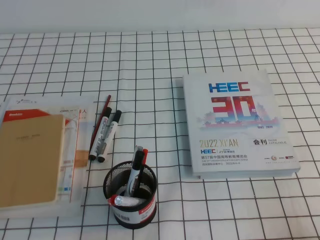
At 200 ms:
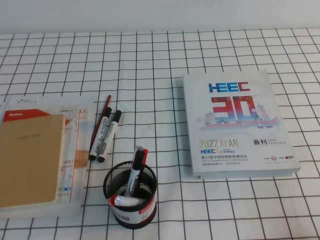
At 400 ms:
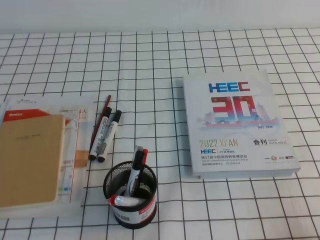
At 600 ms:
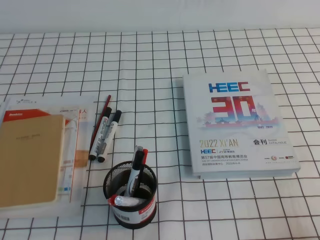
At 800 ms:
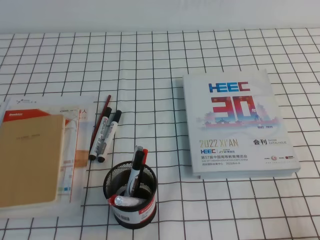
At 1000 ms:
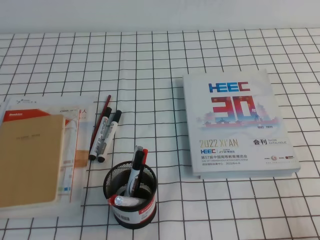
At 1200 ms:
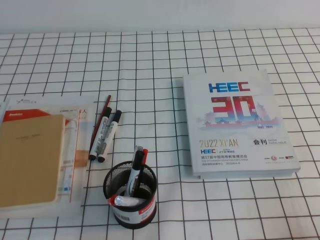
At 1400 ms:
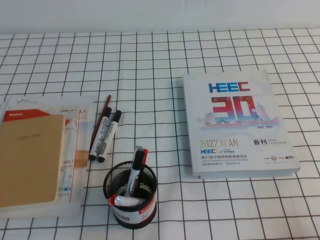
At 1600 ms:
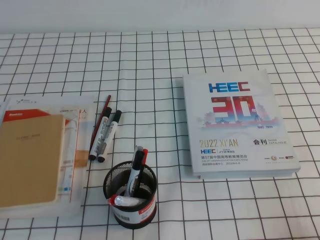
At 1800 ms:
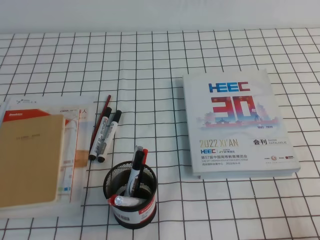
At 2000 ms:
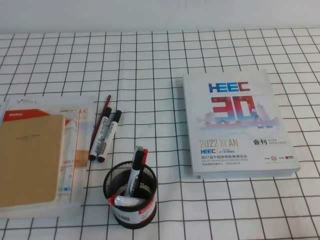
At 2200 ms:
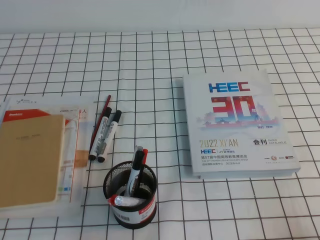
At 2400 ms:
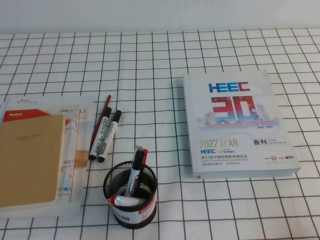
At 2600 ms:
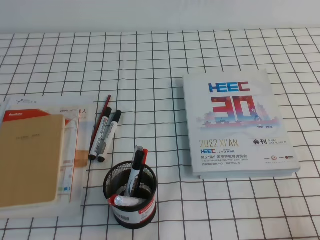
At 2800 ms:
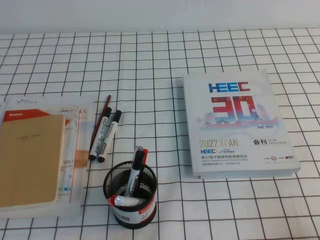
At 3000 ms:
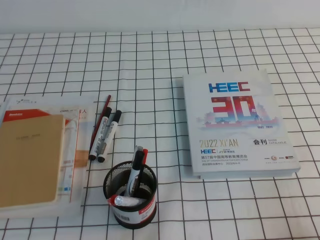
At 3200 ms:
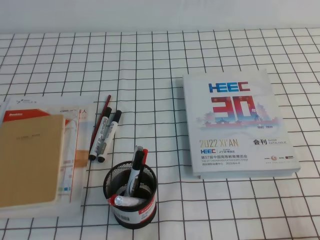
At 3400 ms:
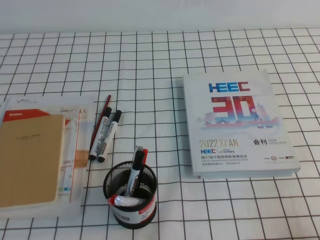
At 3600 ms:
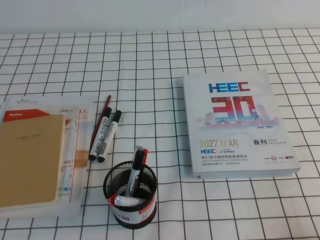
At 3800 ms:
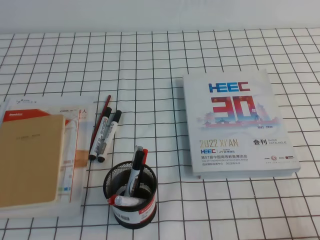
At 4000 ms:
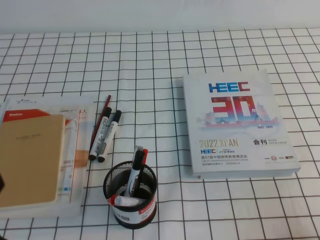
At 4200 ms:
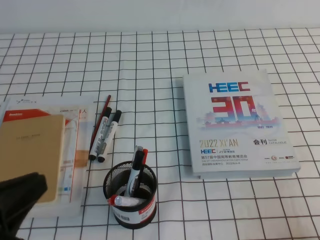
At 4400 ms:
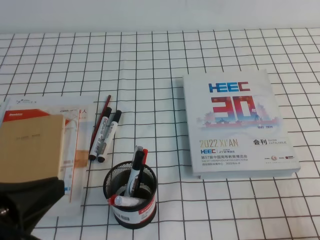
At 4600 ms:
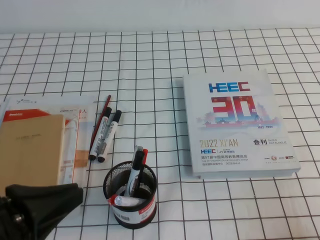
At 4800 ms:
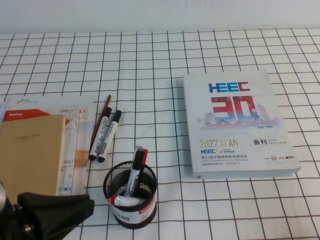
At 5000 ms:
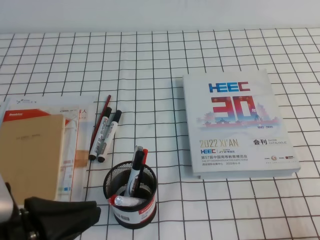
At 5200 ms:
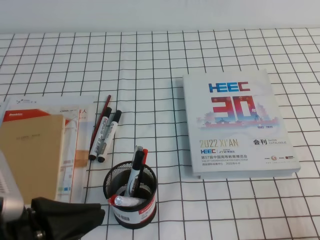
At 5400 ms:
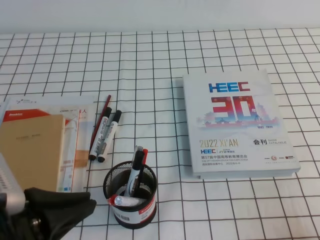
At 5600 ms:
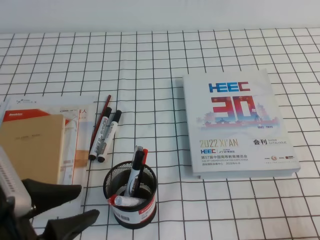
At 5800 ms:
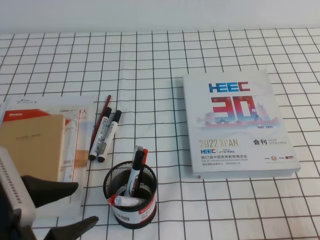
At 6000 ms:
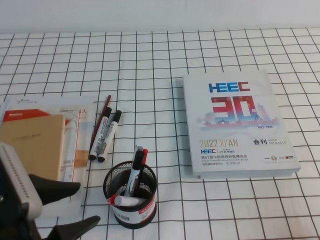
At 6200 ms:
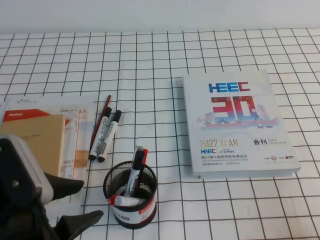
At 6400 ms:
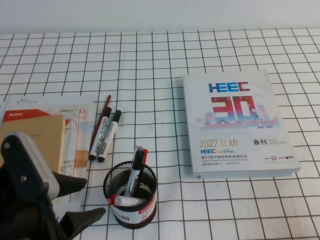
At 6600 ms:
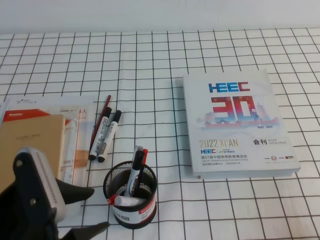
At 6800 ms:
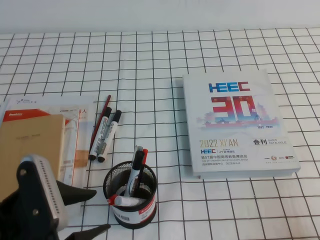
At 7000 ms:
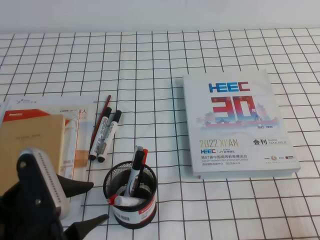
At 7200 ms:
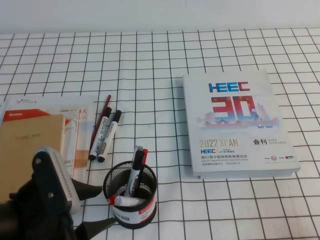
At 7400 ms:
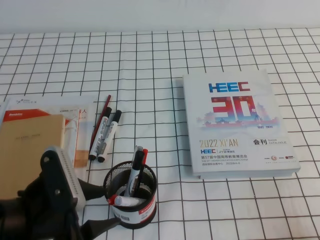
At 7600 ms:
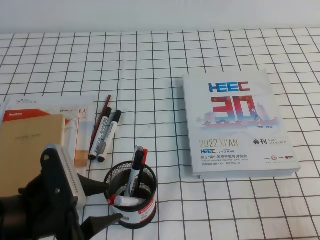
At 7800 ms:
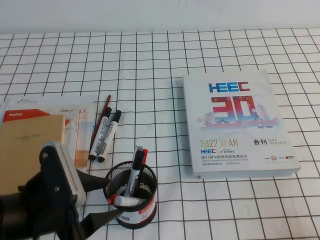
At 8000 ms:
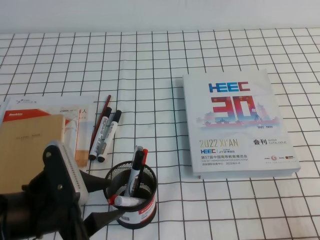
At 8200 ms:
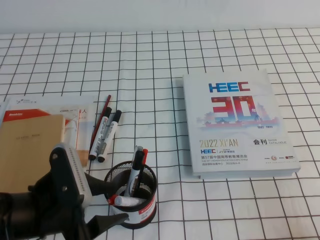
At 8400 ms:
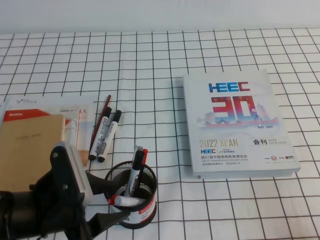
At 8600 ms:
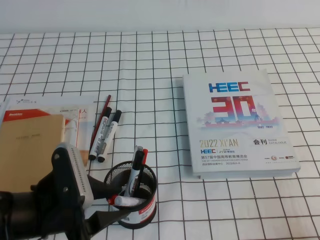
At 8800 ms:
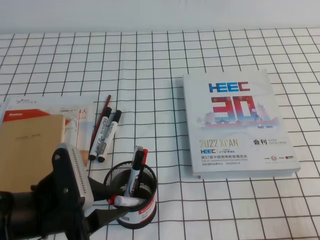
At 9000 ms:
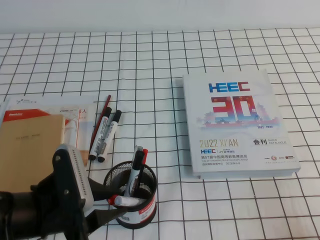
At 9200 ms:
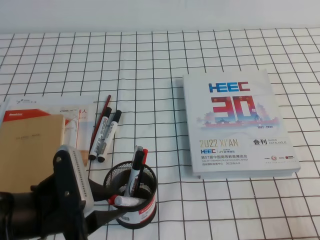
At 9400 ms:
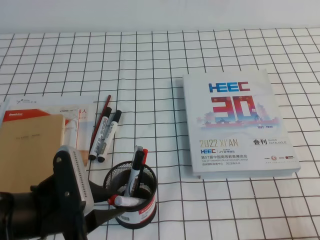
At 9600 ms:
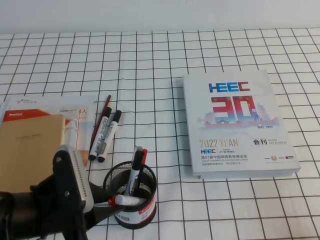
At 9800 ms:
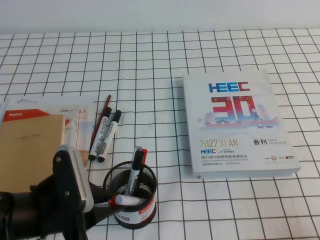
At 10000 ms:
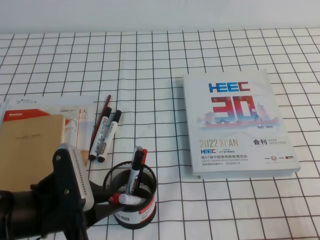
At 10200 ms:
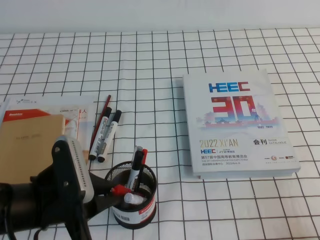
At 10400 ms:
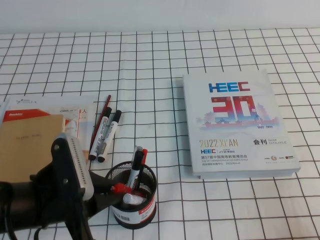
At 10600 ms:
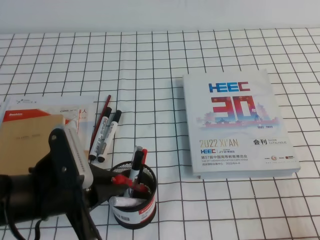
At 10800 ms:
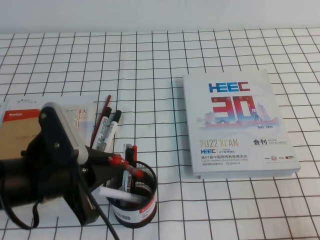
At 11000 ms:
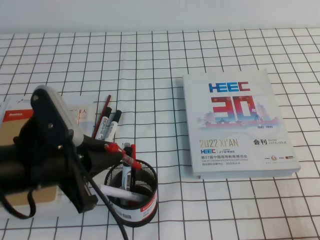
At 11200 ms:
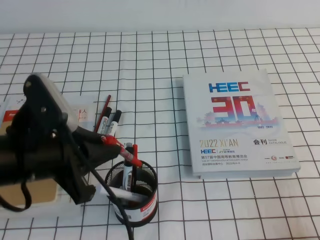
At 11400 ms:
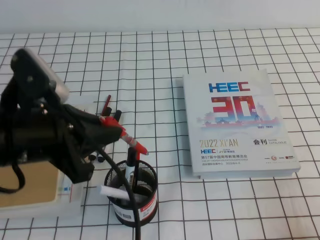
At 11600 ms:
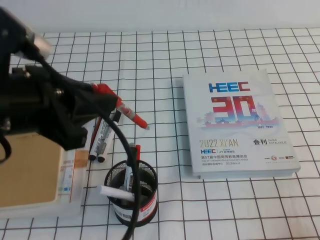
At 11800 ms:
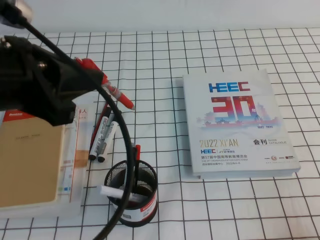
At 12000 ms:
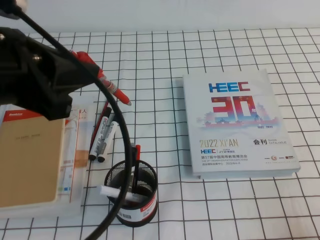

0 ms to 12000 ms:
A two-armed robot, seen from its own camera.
0 ms to 1600 ms: Both grippers stay about where they are.
3000 ms to 4400 ms: The left gripper heads upward and to the right, covering some 10 cm.
4400 ms to 6000 ms: The left gripper opens up.
6000 ms to 7600 ms: The left gripper is displaced downward by roughly 5 cm.
7600 ms to 9000 ms: The left gripper closes up.
9000 ms to 10400 ms: The left gripper closes.
10400 ms to 12000 ms: The left gripper travels upward by about 20 cm.

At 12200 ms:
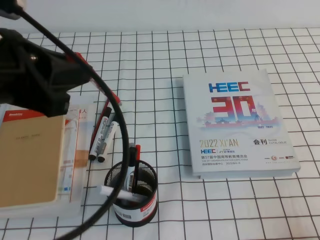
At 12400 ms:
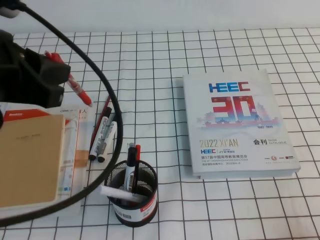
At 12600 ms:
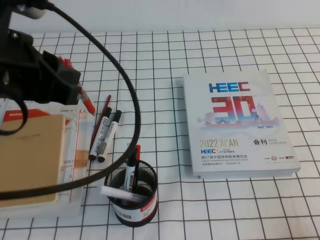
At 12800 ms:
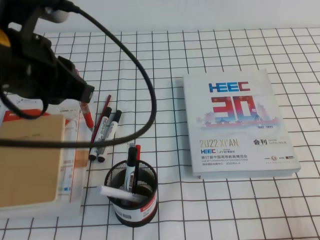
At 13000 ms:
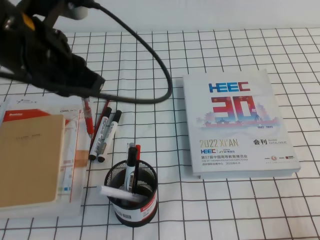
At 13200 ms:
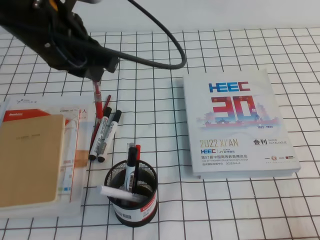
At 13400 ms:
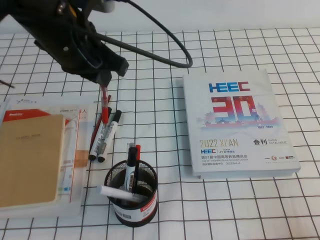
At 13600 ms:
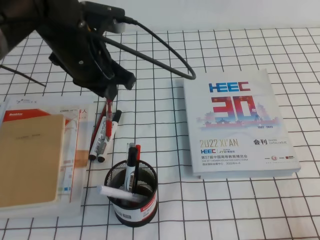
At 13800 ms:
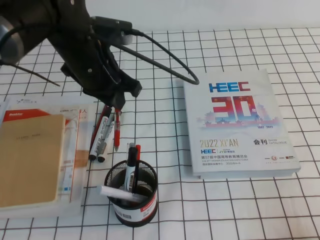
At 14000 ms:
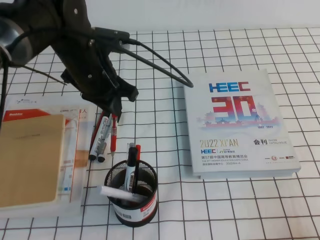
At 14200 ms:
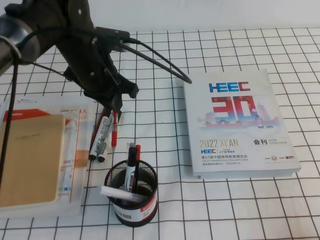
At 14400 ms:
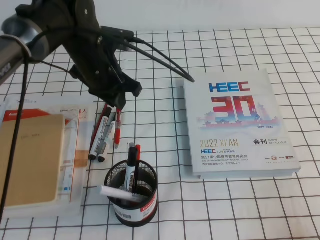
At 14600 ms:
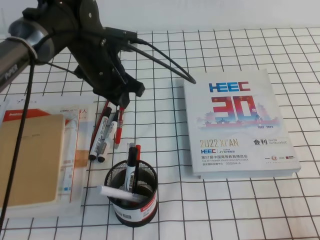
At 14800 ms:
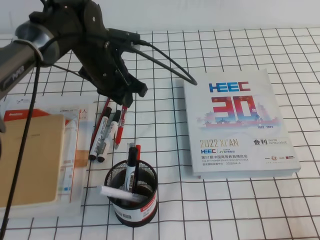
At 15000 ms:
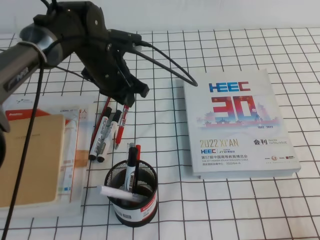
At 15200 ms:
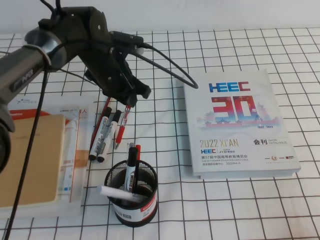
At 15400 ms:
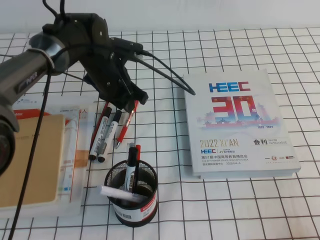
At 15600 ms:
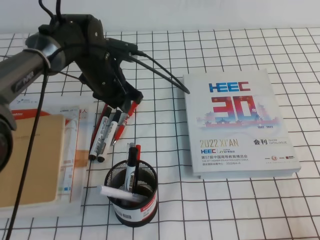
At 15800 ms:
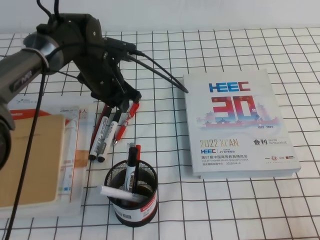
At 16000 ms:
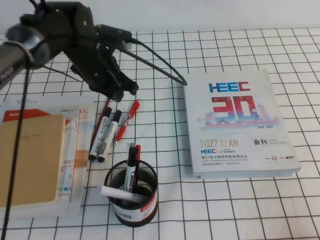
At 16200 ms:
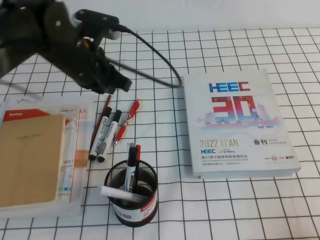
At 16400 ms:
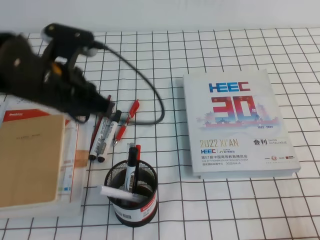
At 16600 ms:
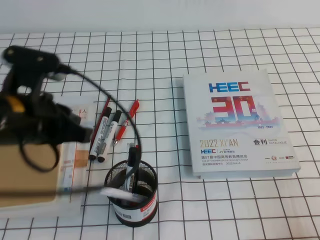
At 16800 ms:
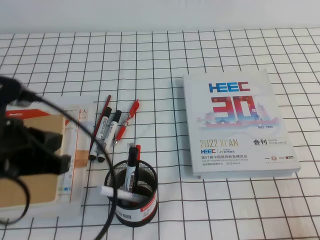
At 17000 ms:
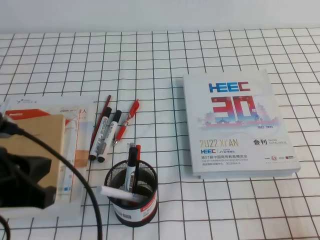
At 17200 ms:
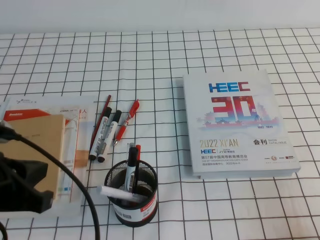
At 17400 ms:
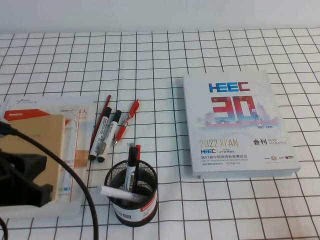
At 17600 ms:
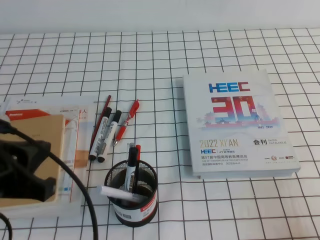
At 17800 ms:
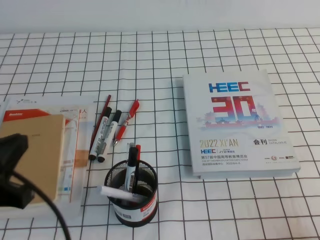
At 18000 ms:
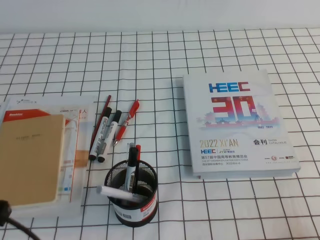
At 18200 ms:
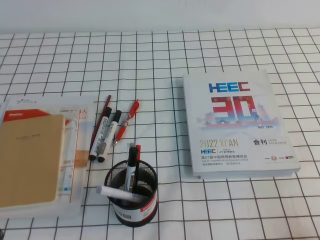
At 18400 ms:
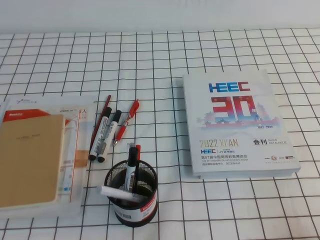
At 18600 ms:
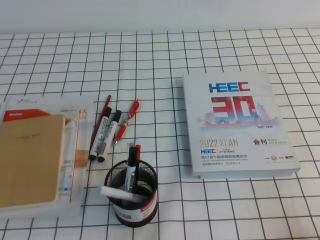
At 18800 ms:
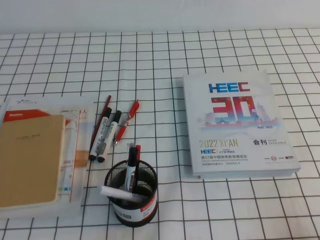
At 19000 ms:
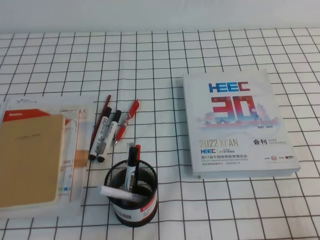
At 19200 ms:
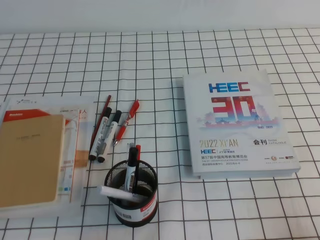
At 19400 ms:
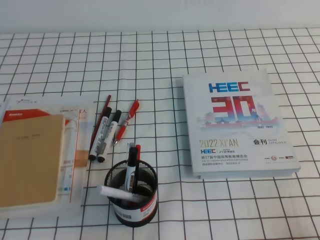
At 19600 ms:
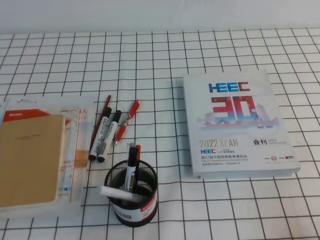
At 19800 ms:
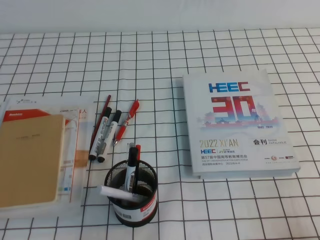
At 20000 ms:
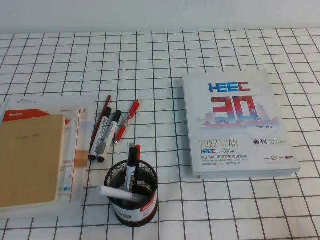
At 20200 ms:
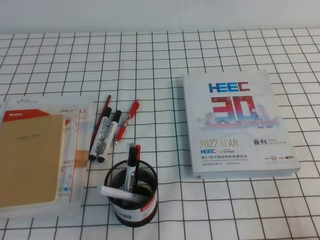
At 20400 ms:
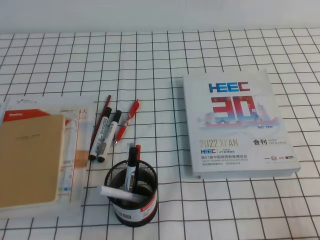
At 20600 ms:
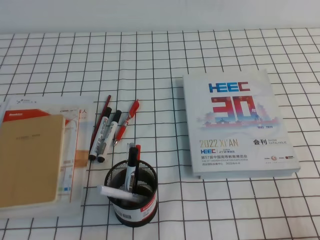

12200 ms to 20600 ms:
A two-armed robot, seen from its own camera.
Step, 12200 ms to 20600 ms: Pick up the pen from the pen holder.
12200 ms to 13600 ms: The left gripper heads forward, to the right and downward, covering approximately 15 cm.
13600 ms to 15000 ms: The left gripper is displaced downward and forward by about 10 cm.
15000 ms to 16400 ms: The left gripper travels backward, upward and to the left by some 15 cm.
16400 ms to 17800 ms: The left gripper is displaced backward and to the left by about 20 cm.
17800 ms to 19200 ms: The left gripper heads downward and backward, covering approximately 15 cm.
19200 ms to 20600 ms: Neither gripper changes place.
